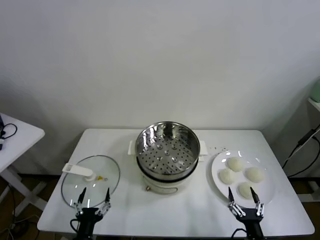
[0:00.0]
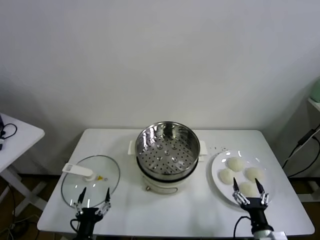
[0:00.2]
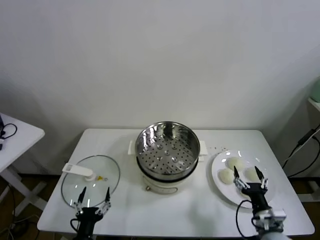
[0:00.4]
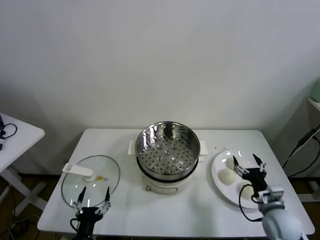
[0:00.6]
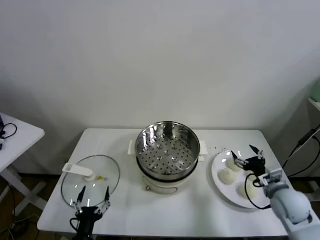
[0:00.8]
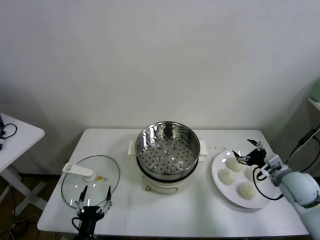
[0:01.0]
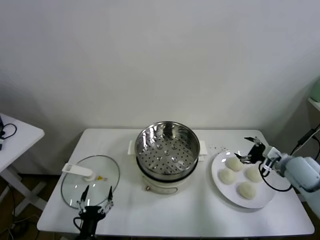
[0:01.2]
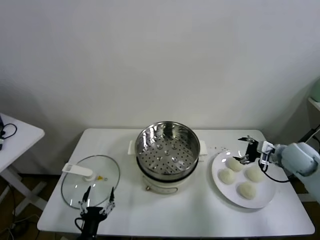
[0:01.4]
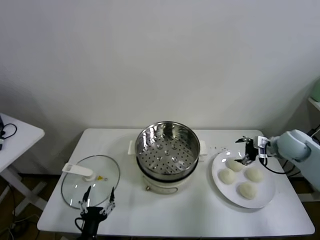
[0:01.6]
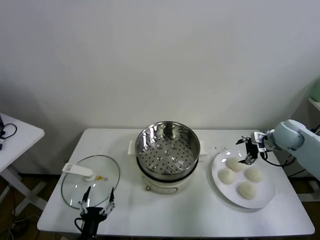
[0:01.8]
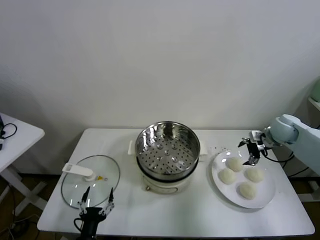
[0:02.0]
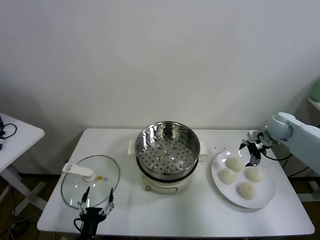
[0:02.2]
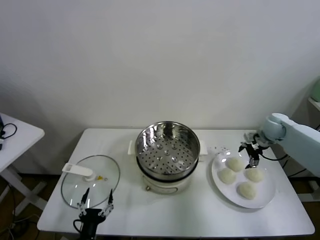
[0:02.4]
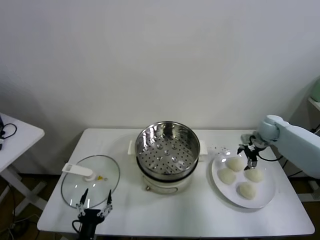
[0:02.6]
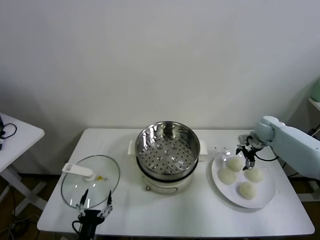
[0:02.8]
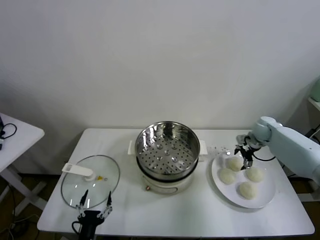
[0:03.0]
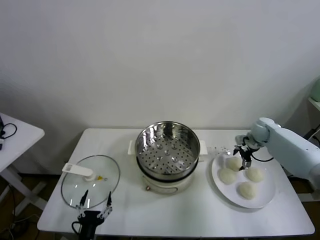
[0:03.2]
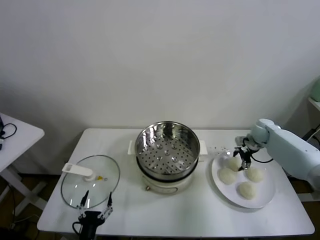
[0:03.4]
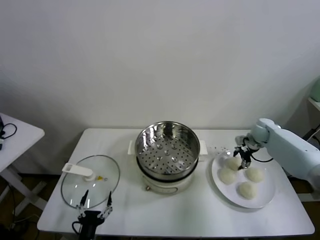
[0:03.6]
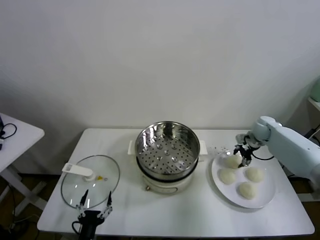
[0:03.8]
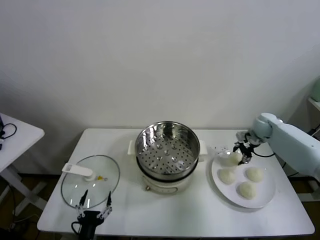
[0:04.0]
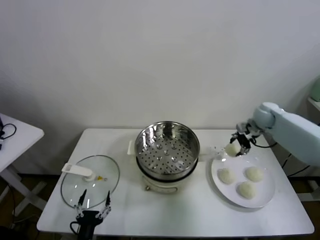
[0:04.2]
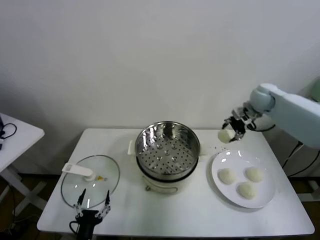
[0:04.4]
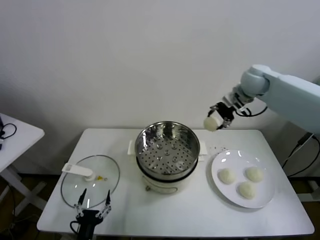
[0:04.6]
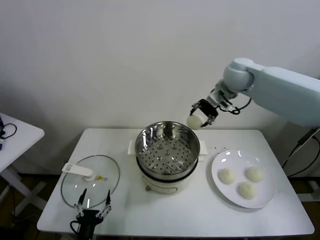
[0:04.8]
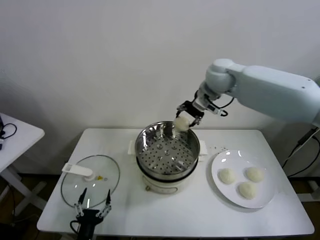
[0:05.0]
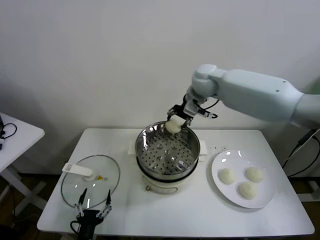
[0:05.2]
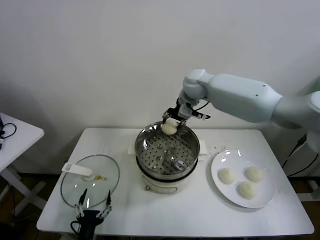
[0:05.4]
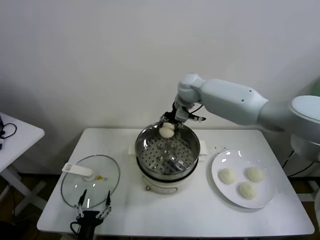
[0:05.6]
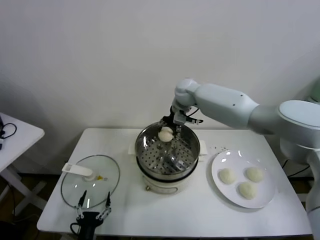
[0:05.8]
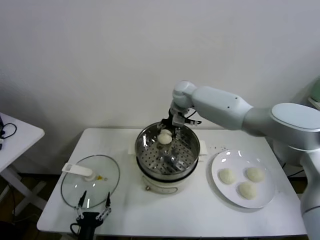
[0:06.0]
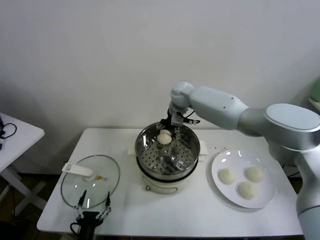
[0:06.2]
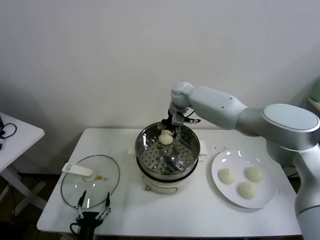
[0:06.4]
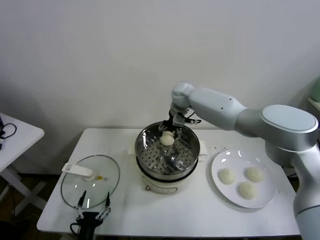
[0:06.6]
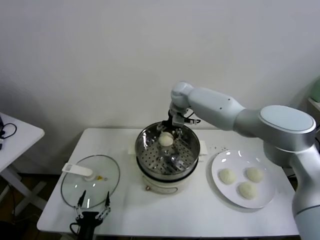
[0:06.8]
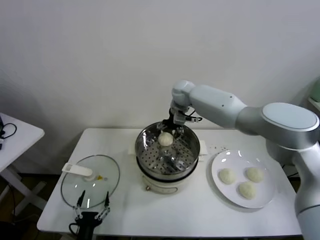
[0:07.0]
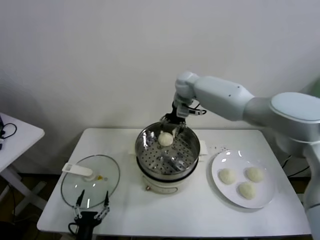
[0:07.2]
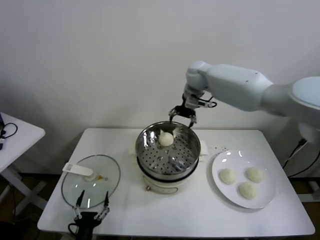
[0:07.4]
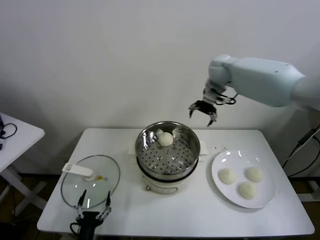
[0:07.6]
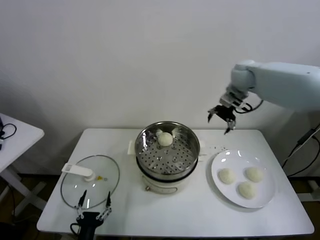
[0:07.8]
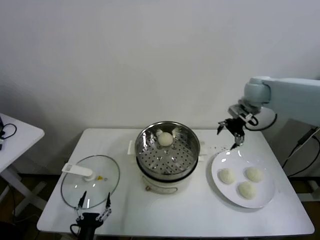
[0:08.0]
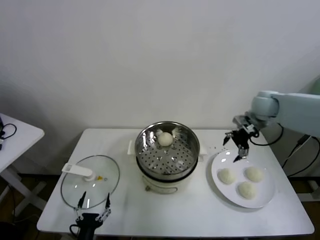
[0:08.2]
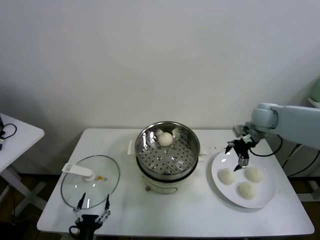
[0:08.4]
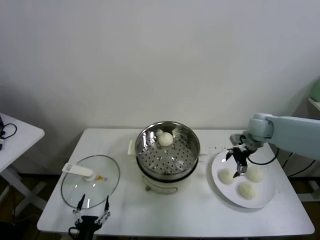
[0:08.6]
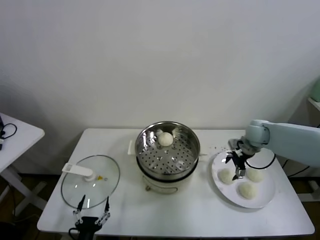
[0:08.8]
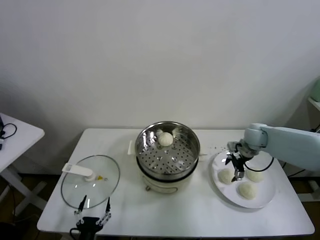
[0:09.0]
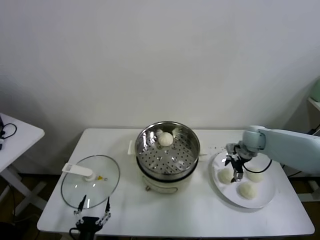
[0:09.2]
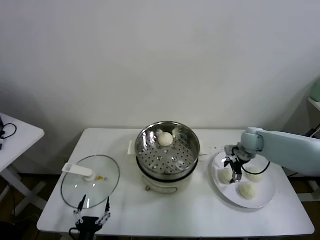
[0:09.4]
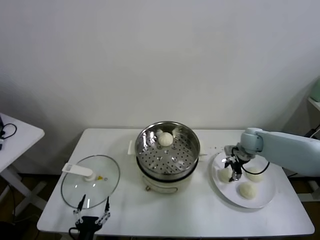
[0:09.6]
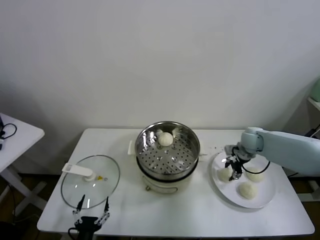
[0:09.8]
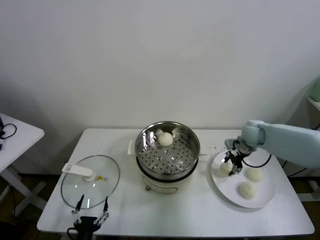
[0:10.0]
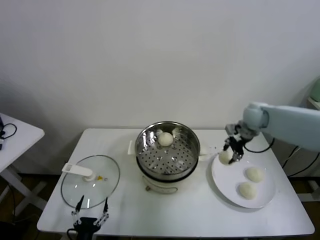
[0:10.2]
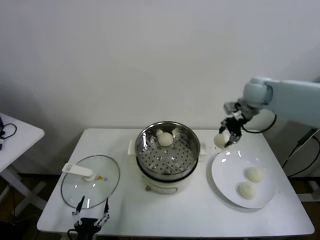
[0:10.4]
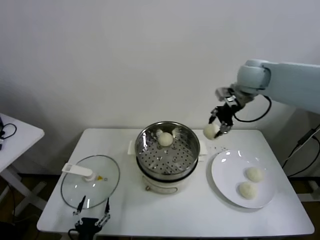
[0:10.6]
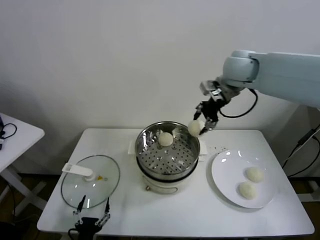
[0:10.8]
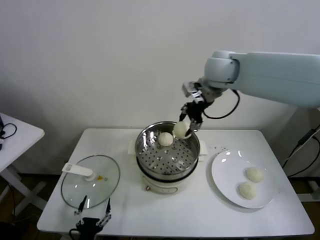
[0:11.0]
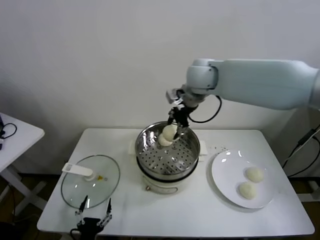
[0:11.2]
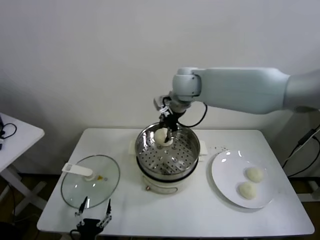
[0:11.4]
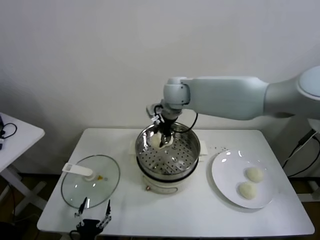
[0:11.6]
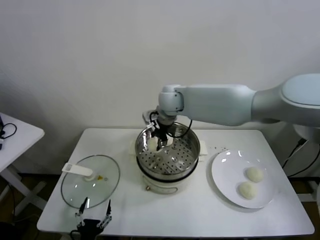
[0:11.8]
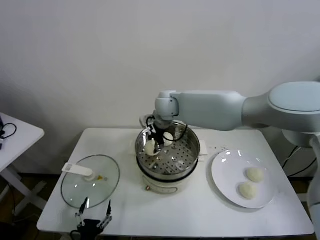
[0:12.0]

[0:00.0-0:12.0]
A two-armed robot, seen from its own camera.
Task of the whole recording: take steamed baozi put them in steamer.
Step, 0:00.0 to 0:03.4: Grasp the baozi in the plate with right gripper.
Step, 0:03.6 to 0:06.8: Place the baozi on the steamer with right gripper.
Step, 0:07.0 to 0:09.6: Grasp the baozi in the plate with right gripper.
0:01.6 to 0:03.0: The right gripper goes about 10 cm forward and downward.
0:03.0 to 0:04.4: The right gripper goes roughly 20 cm upward and to the left, and closes.
0:04.4 to 0:06.0: The right gripper travels to the left by some 25 cm.
0:06.0 to 0:07.6: The right gripper is displaced to the right and upward by roughly 20 cm, and opens.
0:07.6 to 0:09.0: The right gripper goes approximately 30 cm downward, to the right and backward.
0:09.0 to 0:10.4: The right gripper shifts approximately 20 cm upward, and closes its fingers.
0:10.4 to 0:12.0: The right gripper shifts approximately 30 cm to the left.

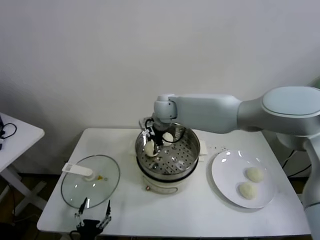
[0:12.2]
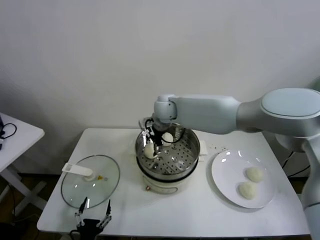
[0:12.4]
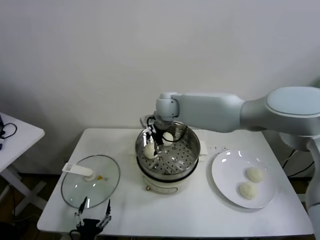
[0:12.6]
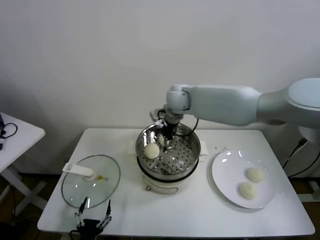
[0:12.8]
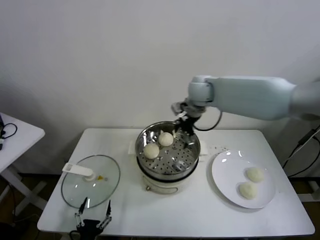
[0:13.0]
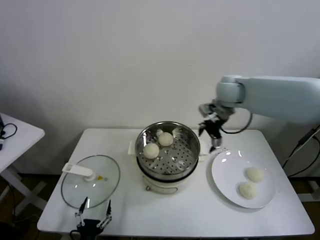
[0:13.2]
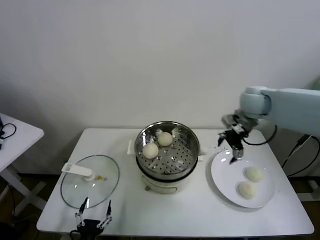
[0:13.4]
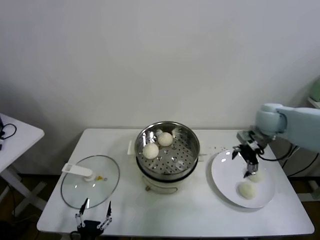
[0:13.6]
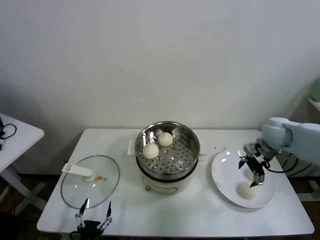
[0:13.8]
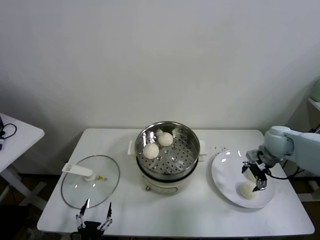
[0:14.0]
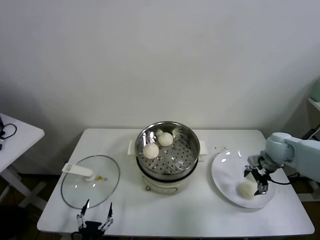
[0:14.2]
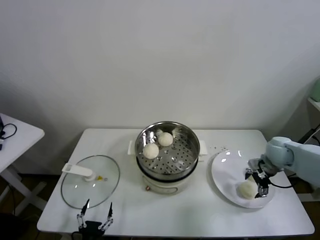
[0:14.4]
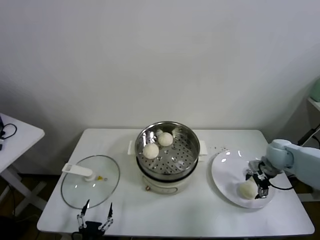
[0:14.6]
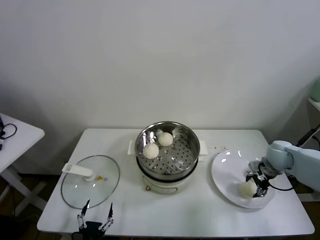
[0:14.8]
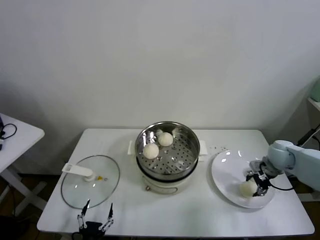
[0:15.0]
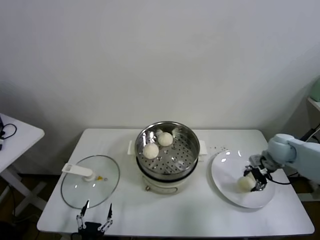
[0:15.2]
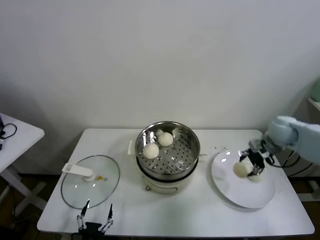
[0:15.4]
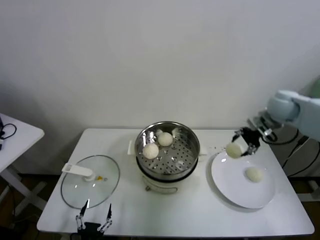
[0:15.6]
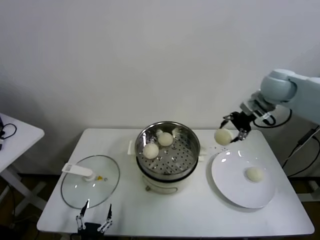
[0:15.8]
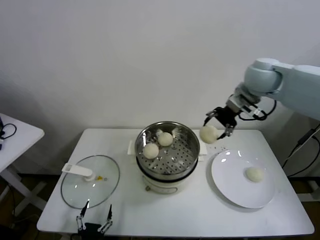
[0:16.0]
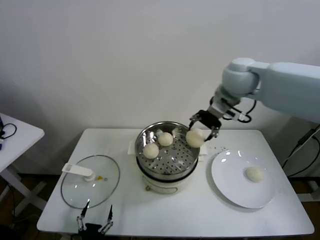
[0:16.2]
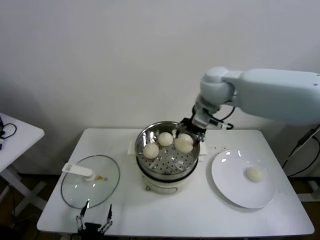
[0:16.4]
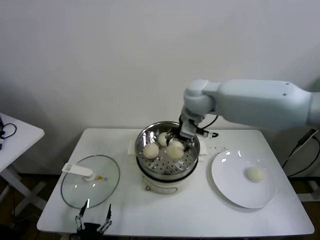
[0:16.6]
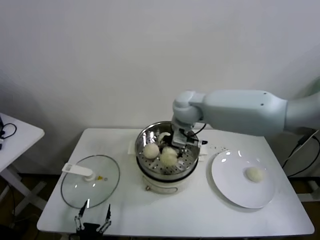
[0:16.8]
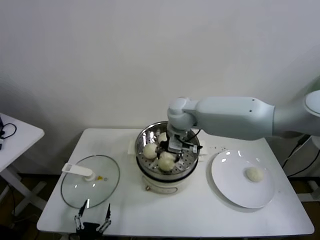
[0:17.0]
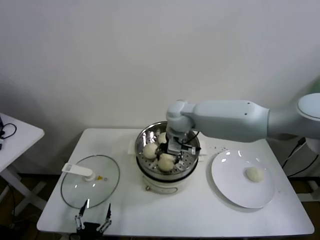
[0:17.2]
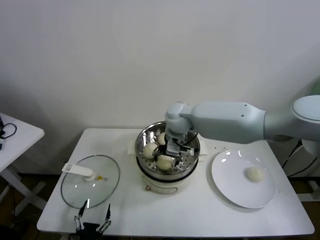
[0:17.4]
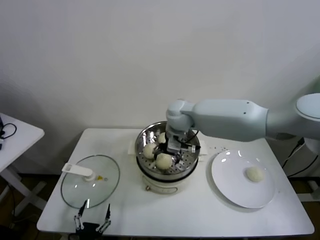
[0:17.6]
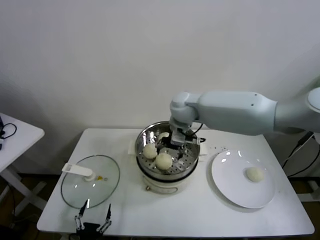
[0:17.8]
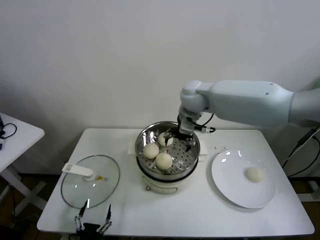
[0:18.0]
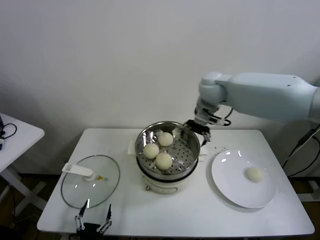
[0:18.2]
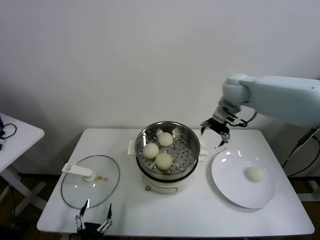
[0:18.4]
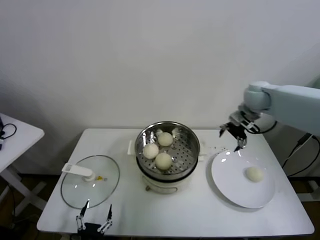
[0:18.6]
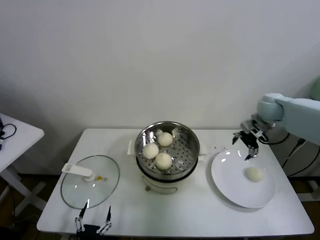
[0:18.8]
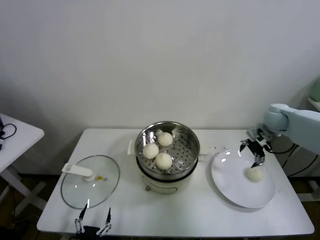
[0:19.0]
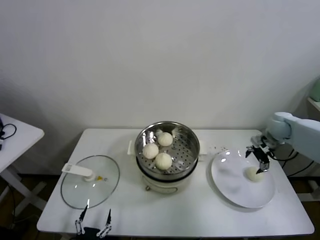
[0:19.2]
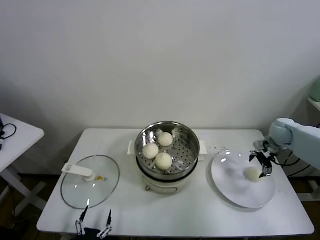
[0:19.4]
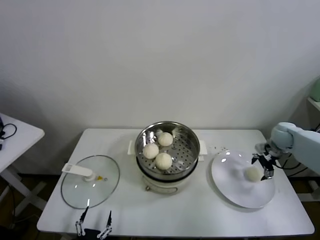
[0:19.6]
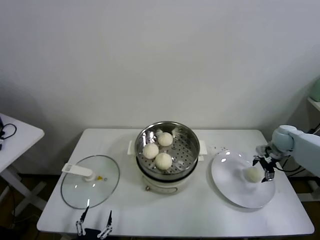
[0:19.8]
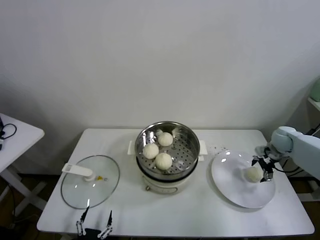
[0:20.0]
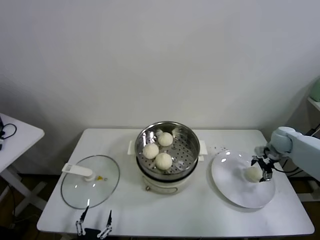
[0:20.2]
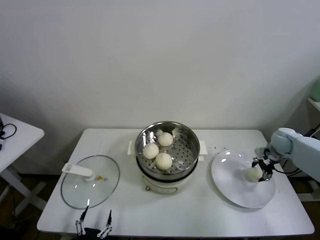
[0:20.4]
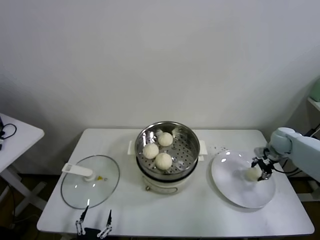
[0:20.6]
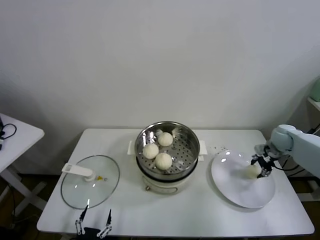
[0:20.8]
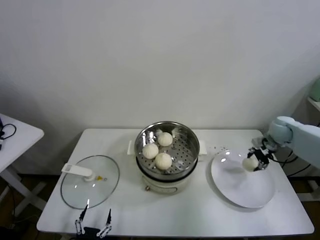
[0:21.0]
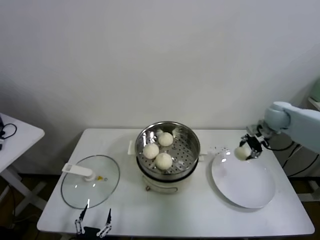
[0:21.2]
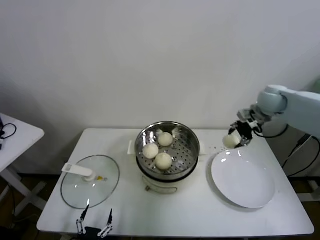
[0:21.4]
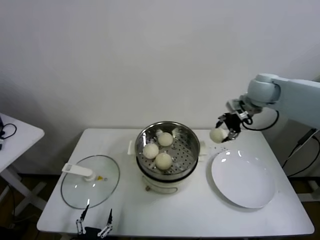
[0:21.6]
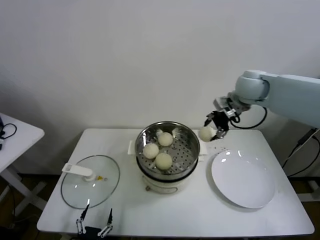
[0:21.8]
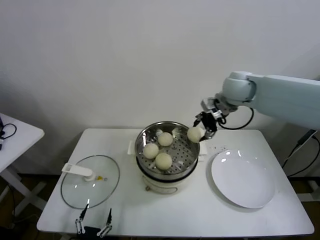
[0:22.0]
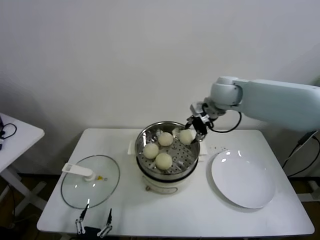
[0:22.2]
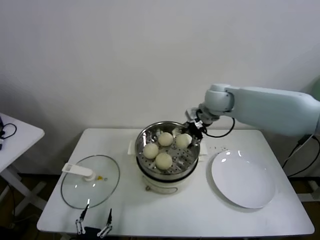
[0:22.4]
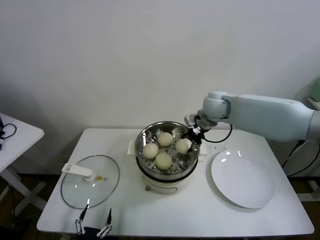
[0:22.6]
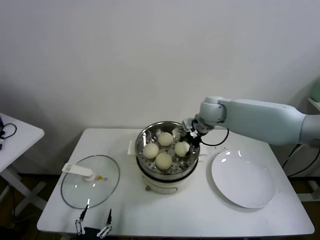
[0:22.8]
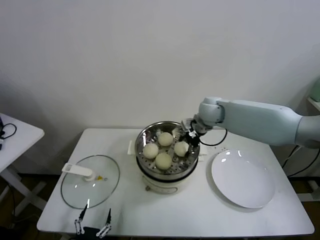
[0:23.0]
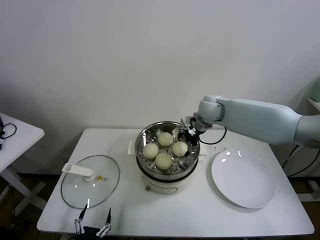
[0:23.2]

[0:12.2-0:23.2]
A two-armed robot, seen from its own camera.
Task of the whole recording: take steamed baozi put them in steamer.
Step, 0:12.8 to 0:14.8: Grasp the baozi in the plate with right gripper.
Step, 0:15.0 to 0:17.6: Place the baozi on the steamer with right gripper.
Step, 0:17.8 to 0:20.4: Grasp the baozi in the plate with right gripper.
Step, 0:20.6 to 0:23.2: Place the baozi on the steamer with right gripper.
0:12.2 to 0:13.8: The right gripper shifts approximately 35 cm to the right, and opens.
0:13.8 to 0:15.4: The right gripper moves some 10 cm downward and comes back, and closes.
0:15.4 to 0:17.0: The right gripper shifts roughly 35 cm to the left.
0:17.0 to 0:18.4: The right gripper shifts roughly 20 cm to the right, and opens up.
0:18.4 to 0:20.0: The right gripper heads to the right and downward, covering approximately 30 cm.
0:20.0 to 0:21.6: The right gripper shifts approximately 25 cm upward and to the left, and closes.
0:21.6 to 0:23.2: The right gripper goes roughly 15 cm to the left and downward, and opens up.
